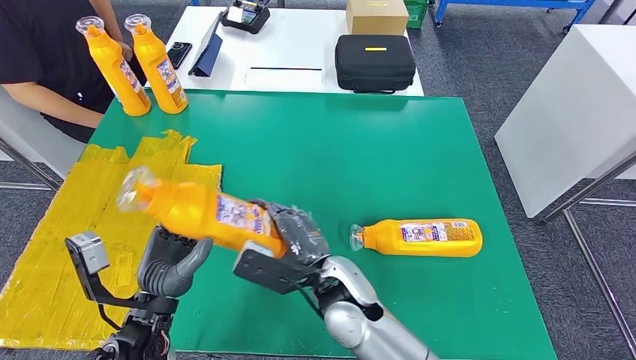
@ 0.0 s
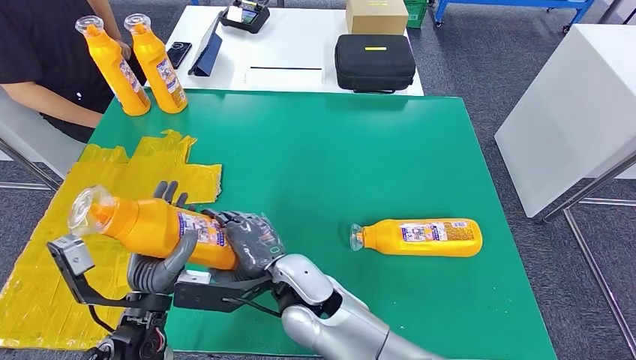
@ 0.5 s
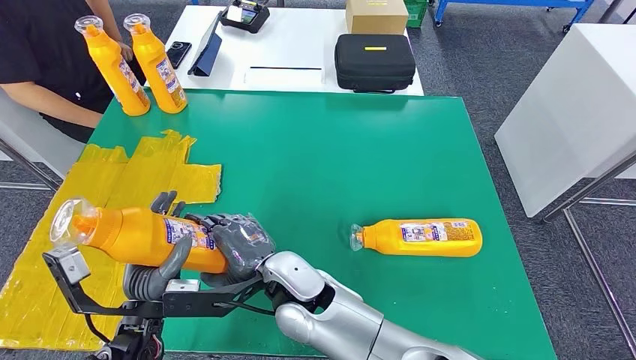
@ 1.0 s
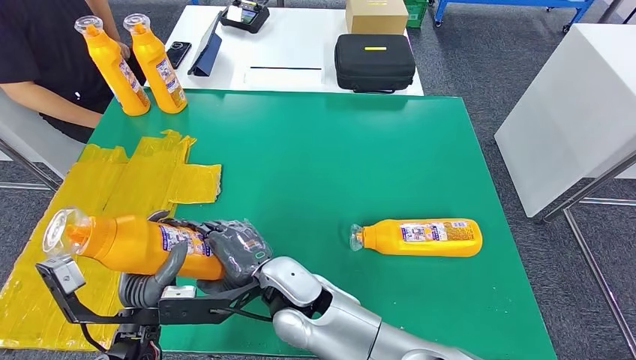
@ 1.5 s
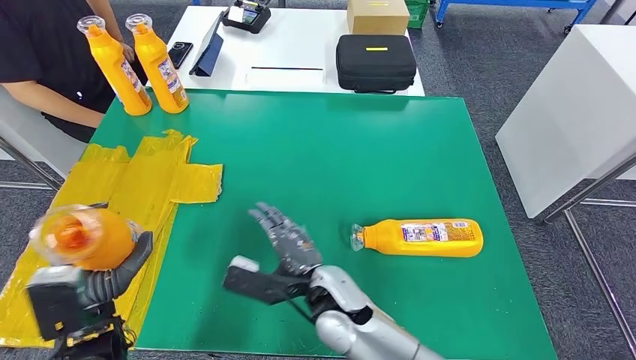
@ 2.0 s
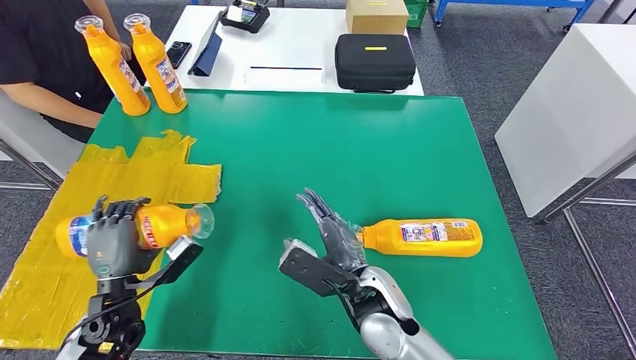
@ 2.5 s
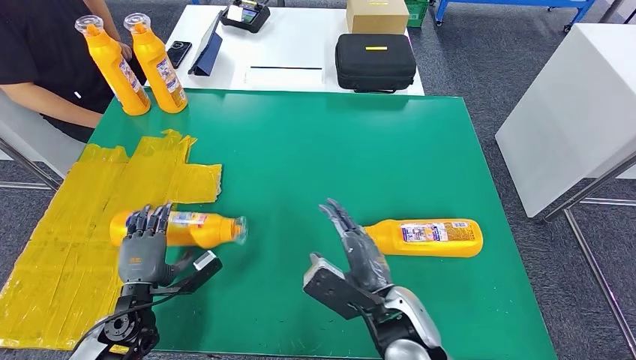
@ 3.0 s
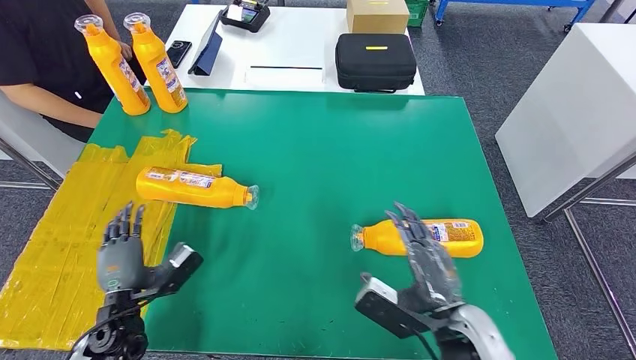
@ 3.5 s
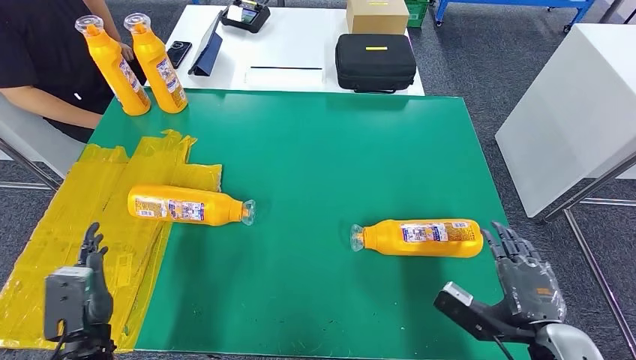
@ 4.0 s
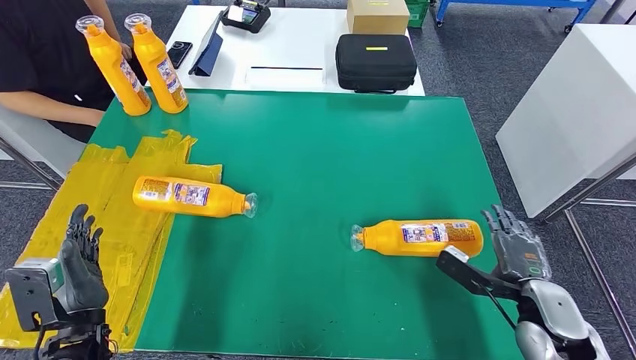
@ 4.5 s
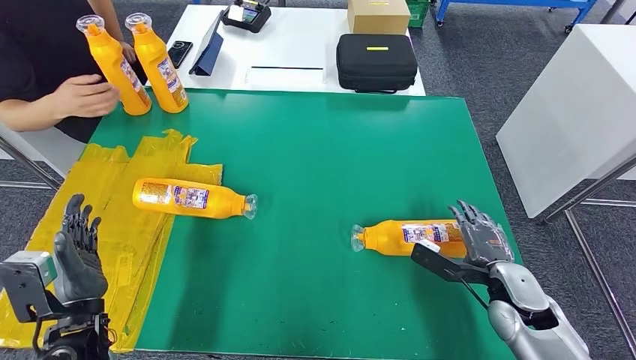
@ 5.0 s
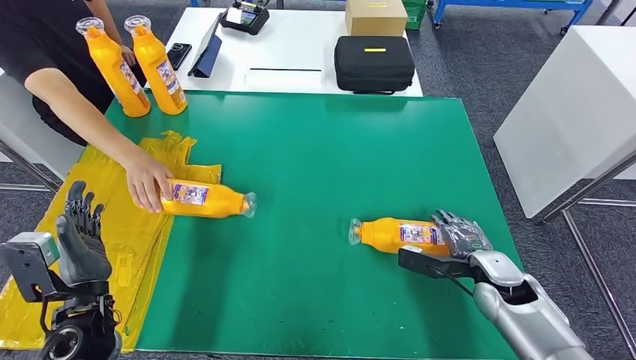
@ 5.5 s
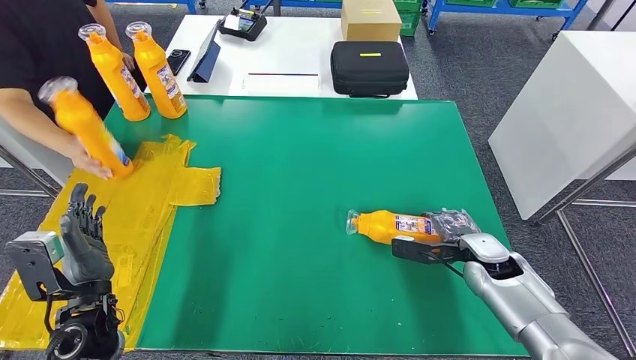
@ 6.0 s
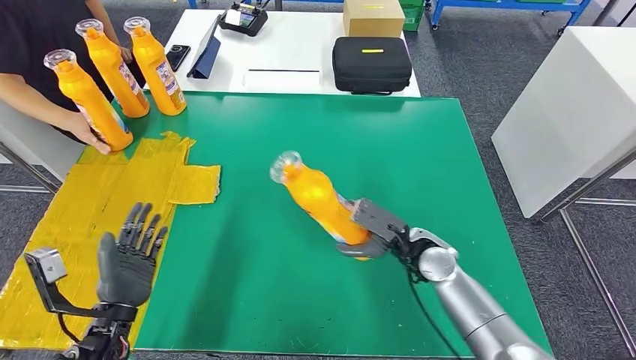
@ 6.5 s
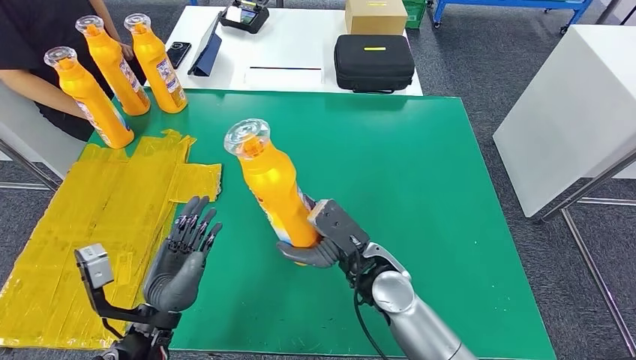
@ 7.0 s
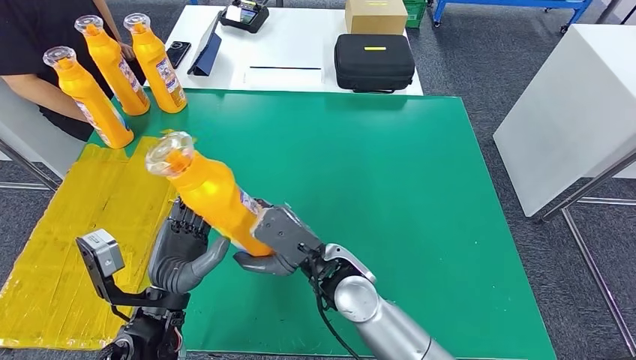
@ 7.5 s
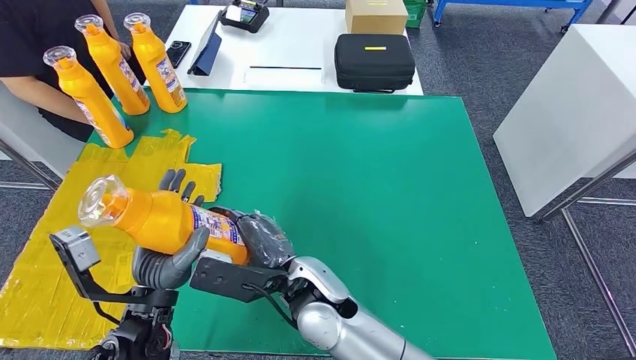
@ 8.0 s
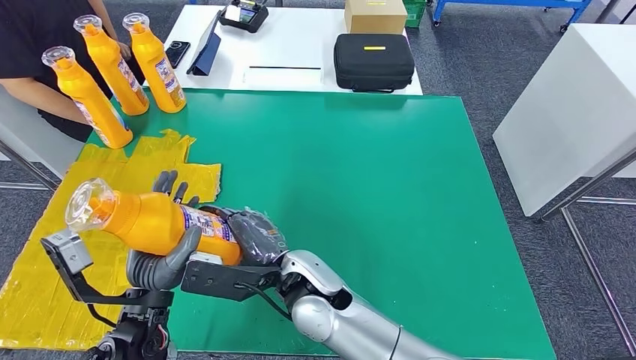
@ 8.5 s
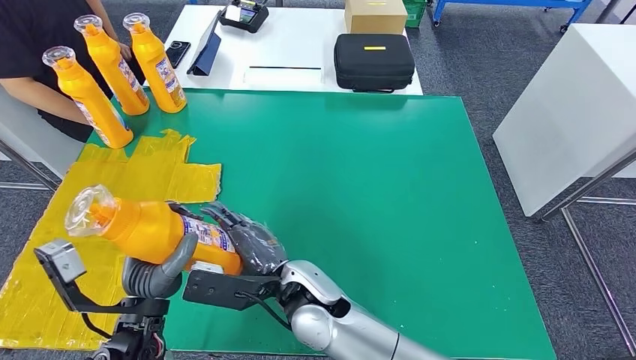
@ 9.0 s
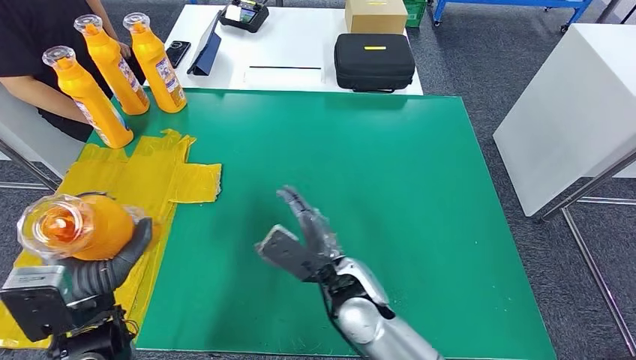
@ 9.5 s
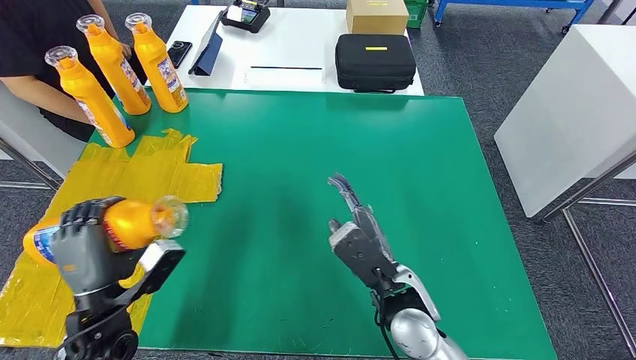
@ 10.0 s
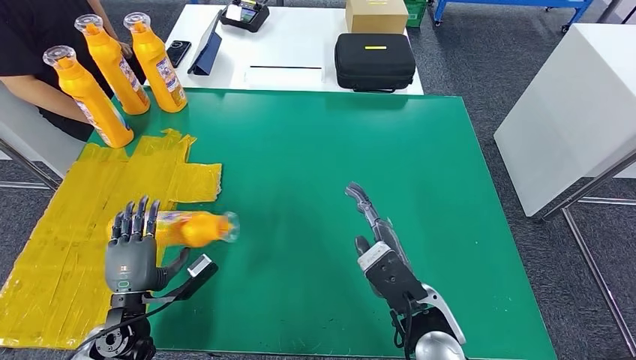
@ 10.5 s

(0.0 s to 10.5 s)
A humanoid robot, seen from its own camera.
Step, 0.0 s - 3.0 s: Flip the bottle to face forward.
Step, 3.5 s - 7.0 s: Pick up the bottle from the table.
Step, 7.5 s - 10.5 s: Flip the bottle to face forward.
0.0 s - 2.0 s: The right hand reaches roughly 10 cm to the left, then returns. The left hand shifts roughly 5 cm to the left.
